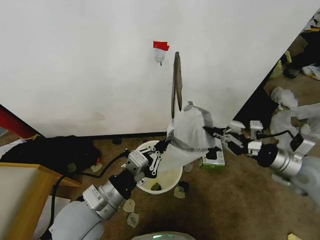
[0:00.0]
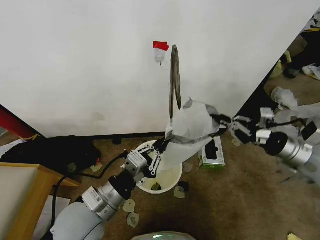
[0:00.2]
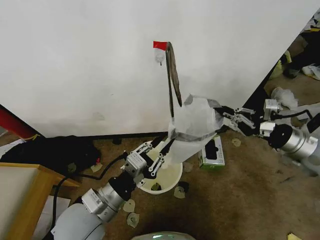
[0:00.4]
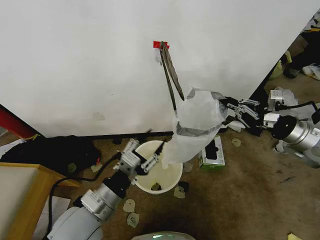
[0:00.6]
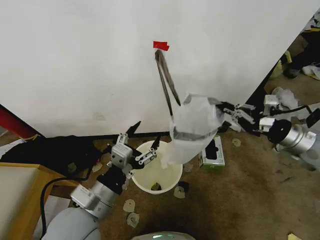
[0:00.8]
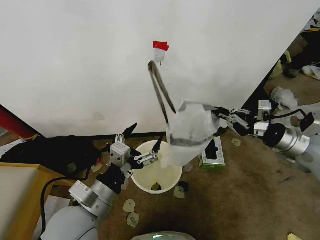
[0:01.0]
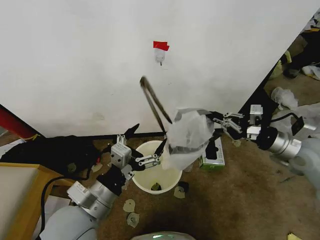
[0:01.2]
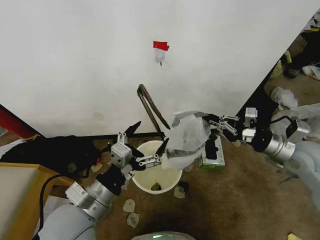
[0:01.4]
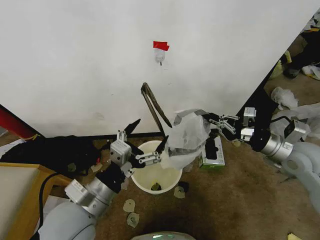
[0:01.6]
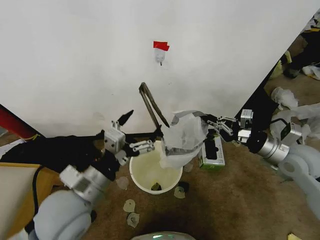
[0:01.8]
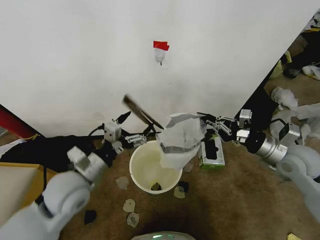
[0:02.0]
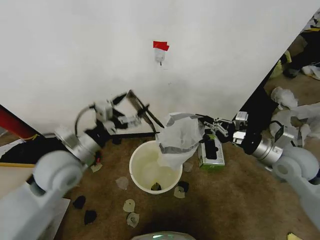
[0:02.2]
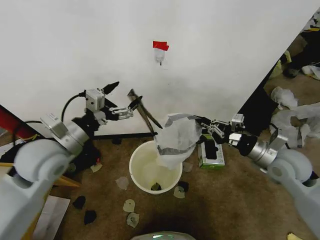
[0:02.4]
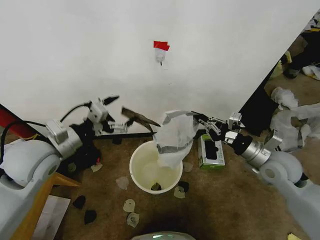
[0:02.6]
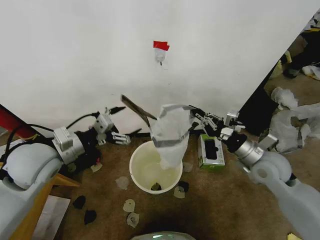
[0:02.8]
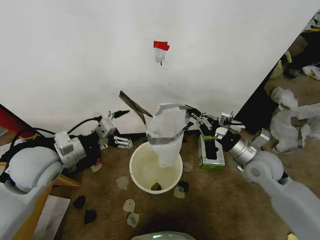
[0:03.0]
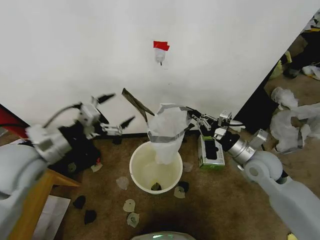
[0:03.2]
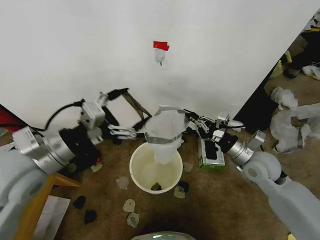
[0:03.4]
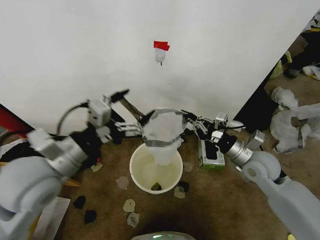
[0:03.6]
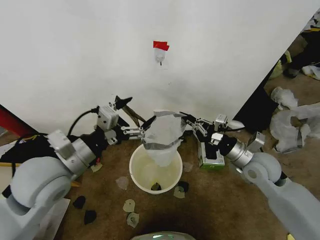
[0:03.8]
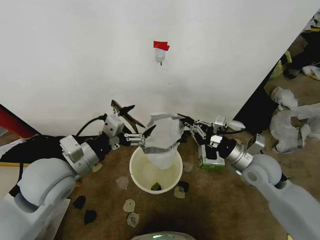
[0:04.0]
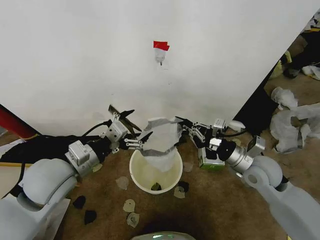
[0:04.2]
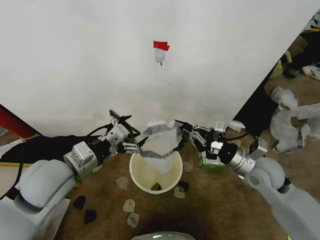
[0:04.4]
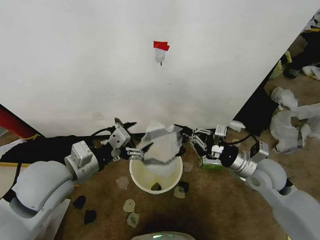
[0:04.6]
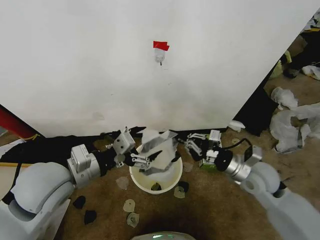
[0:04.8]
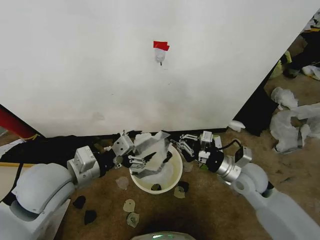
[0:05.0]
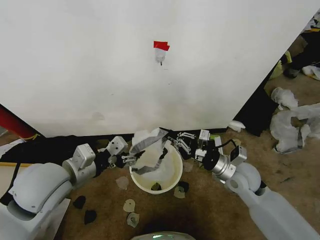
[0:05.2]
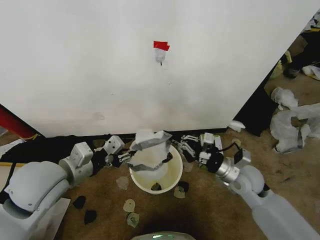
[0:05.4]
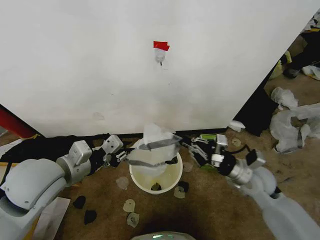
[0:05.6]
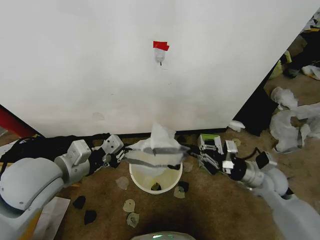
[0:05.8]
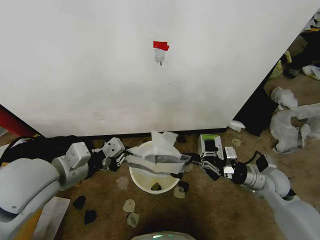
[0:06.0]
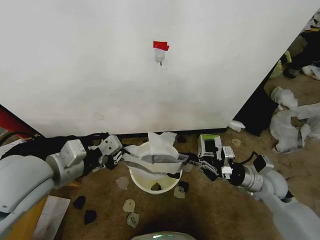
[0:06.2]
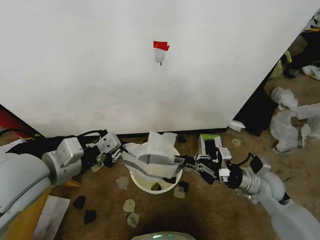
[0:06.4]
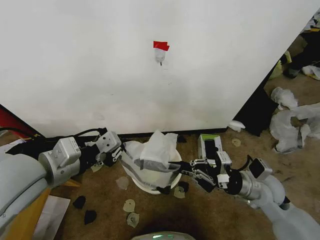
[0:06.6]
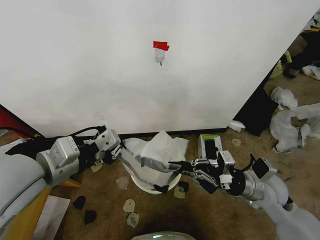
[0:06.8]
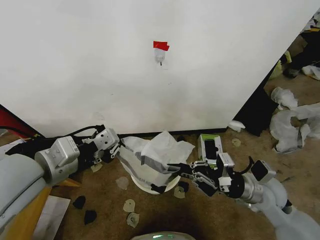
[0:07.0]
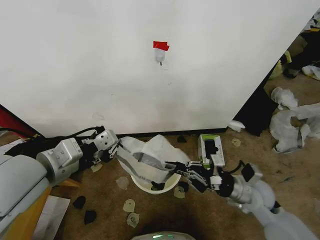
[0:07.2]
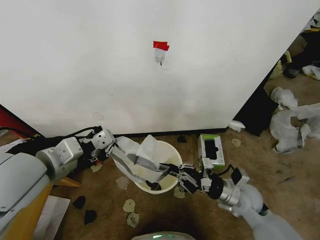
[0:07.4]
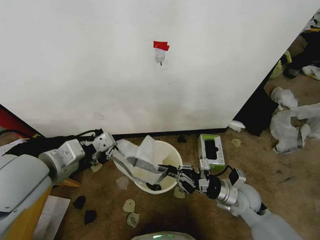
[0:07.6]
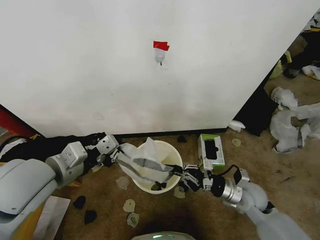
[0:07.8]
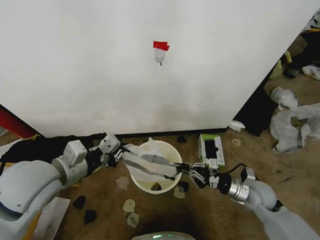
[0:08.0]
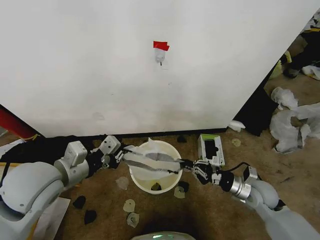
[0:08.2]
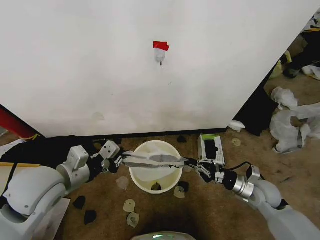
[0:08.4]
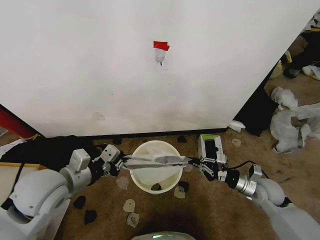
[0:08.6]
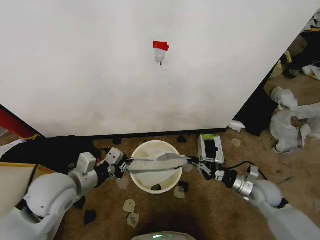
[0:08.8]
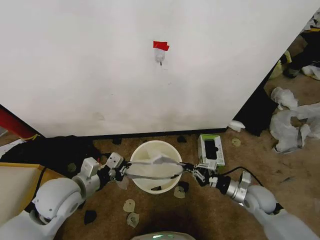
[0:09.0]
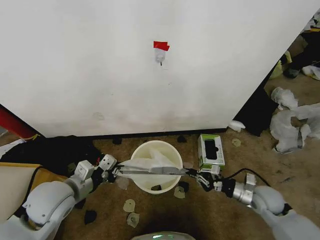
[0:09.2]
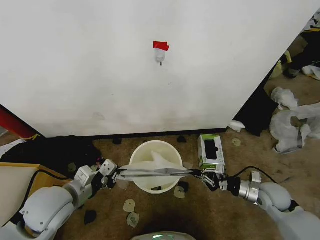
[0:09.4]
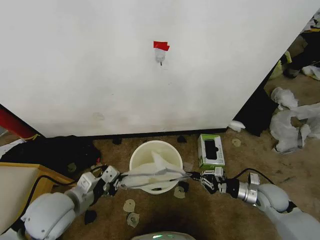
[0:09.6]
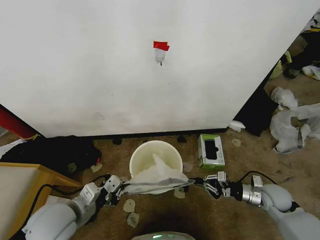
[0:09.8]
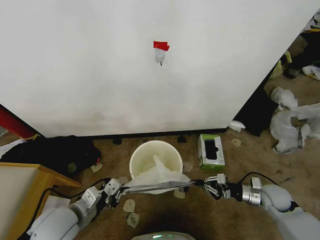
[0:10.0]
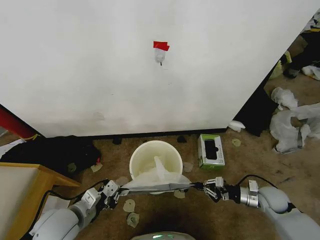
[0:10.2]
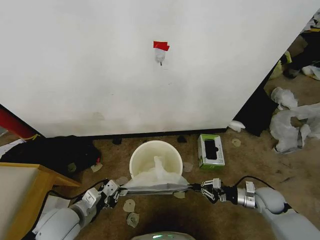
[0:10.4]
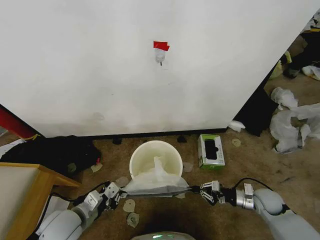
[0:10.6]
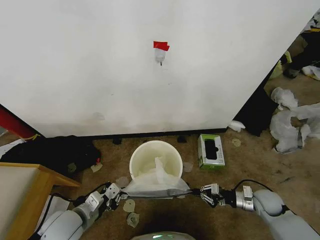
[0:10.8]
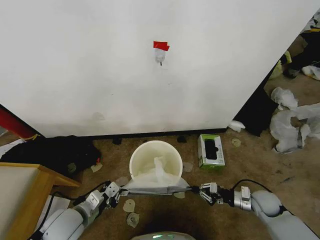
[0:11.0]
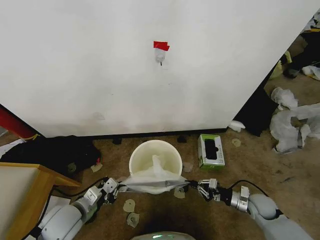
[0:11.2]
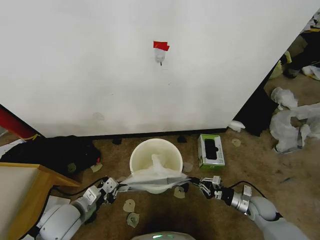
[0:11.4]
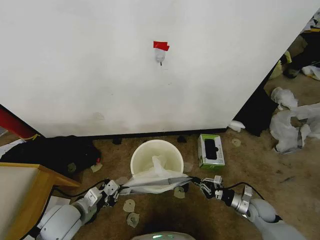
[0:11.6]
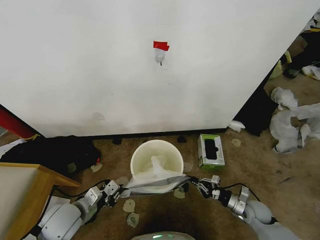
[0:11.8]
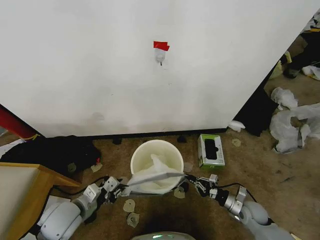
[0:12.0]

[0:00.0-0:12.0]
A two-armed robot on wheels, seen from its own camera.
Task of the whole recording: Place the garbage bag over the trash bin.
0:00.0 to 0:01.6: The left gripper opens its fingers.
0:01.6 to 0:03.0: The right gripper moves to the left and downward, about 10 cm. The left gripper shifts about 15 cm forward and to the left.
0:04.4 to 0:06.0: The left gripper closes up. The right gripper shifts roughly 5 cm downward.
0:06.0 to 0:07.6: The right gripper is displaced to the left and downward by roughly 10 cm.
0:07.6 to 0:09.0: The right gripper is displaced to the right by some 5 cm. The left gripper goes some 15 cm downward.
0:09.0 to 0:10.4: The right gripper is displaced to the right by about 5 cm. Meanwhile the left gripper heads downward and backward, covering roughly 10 cm.
0:10.4 to 0:12.0: The right gripper moves downward, roughly 5 cm.

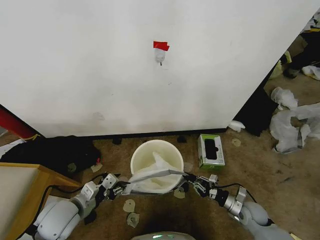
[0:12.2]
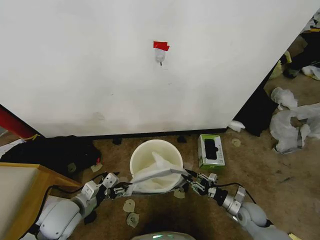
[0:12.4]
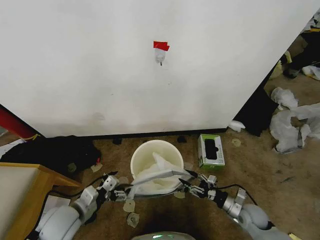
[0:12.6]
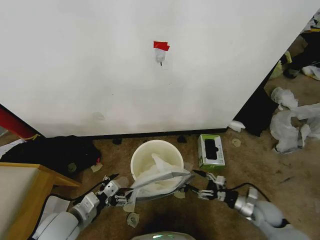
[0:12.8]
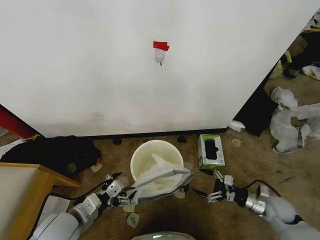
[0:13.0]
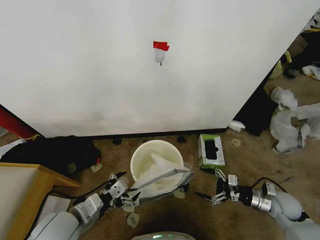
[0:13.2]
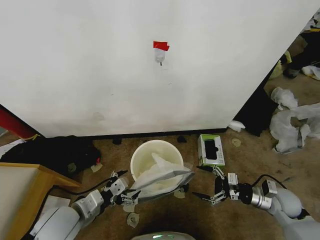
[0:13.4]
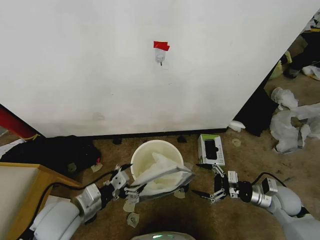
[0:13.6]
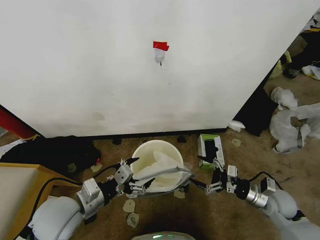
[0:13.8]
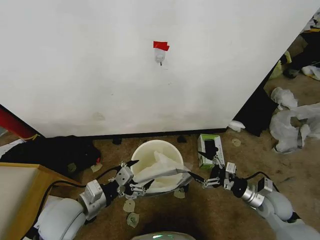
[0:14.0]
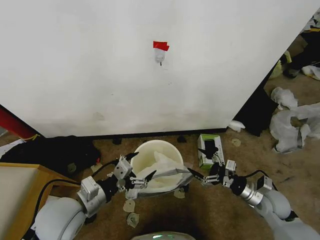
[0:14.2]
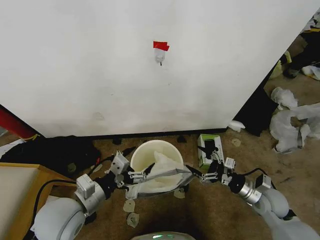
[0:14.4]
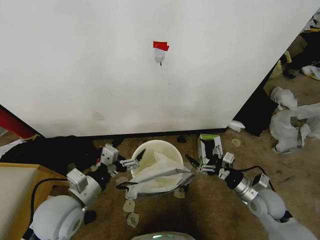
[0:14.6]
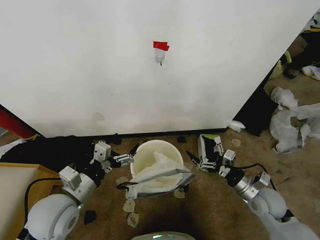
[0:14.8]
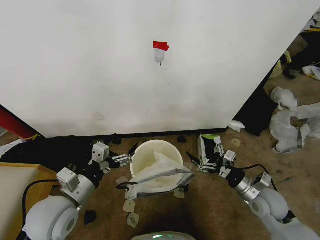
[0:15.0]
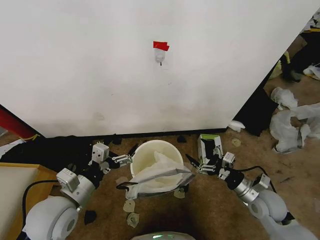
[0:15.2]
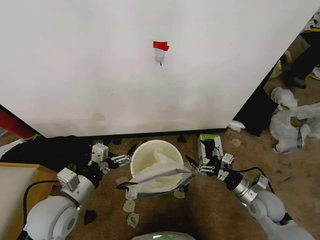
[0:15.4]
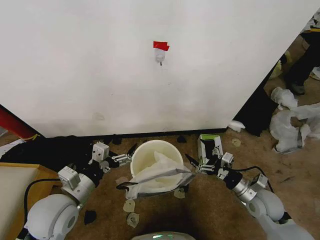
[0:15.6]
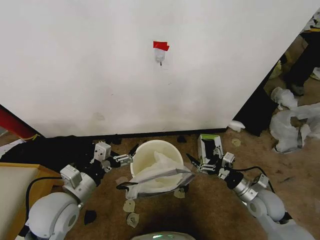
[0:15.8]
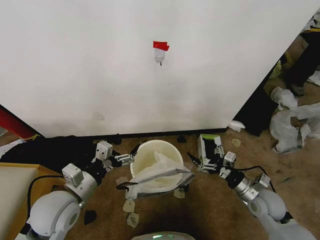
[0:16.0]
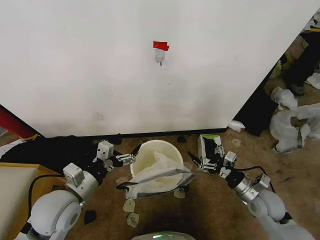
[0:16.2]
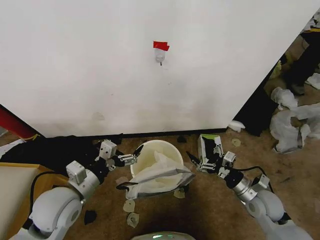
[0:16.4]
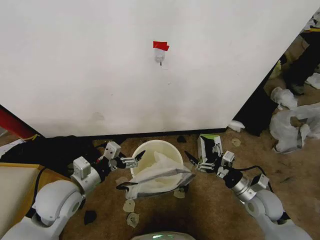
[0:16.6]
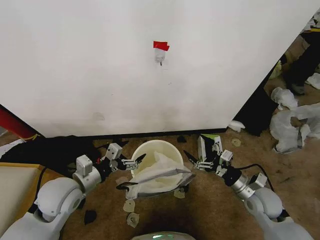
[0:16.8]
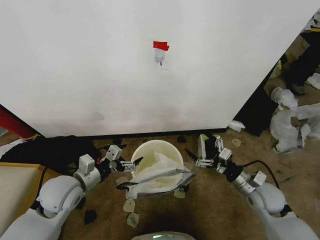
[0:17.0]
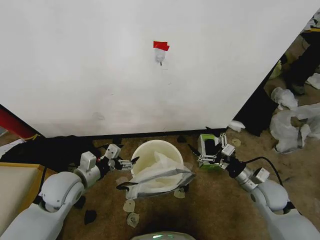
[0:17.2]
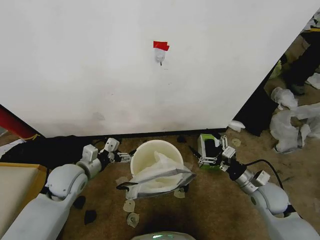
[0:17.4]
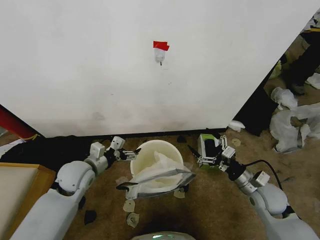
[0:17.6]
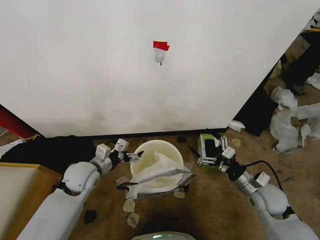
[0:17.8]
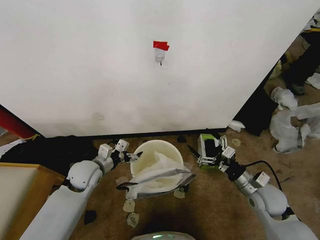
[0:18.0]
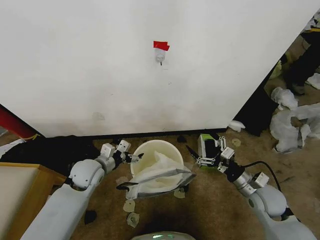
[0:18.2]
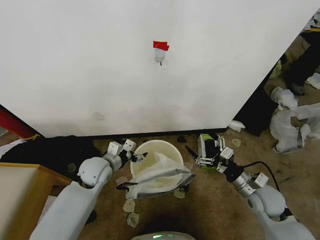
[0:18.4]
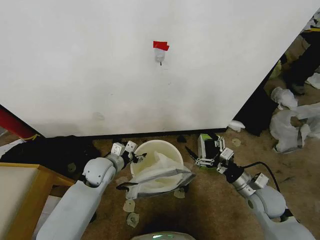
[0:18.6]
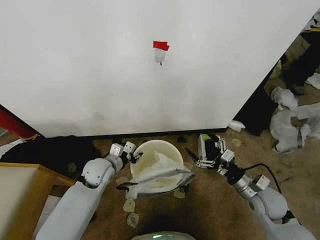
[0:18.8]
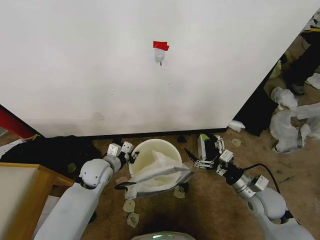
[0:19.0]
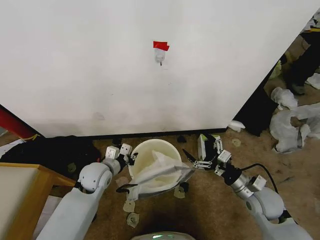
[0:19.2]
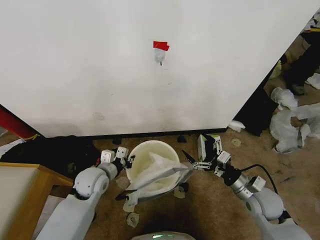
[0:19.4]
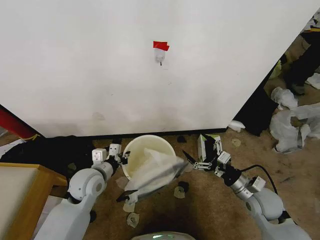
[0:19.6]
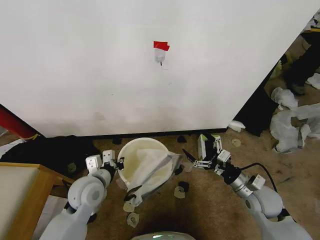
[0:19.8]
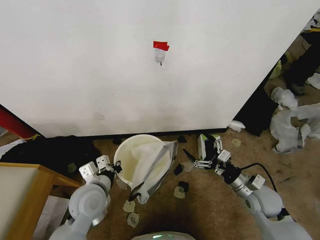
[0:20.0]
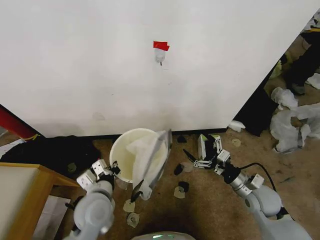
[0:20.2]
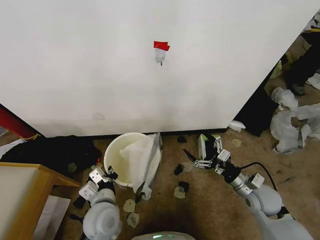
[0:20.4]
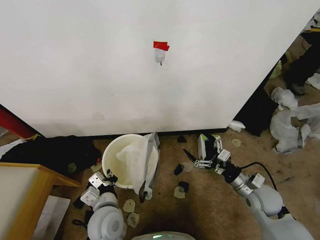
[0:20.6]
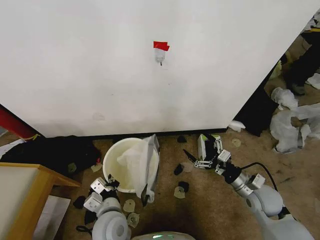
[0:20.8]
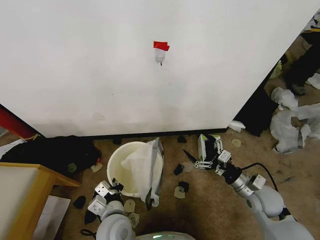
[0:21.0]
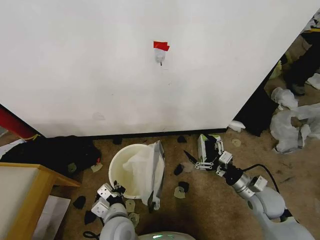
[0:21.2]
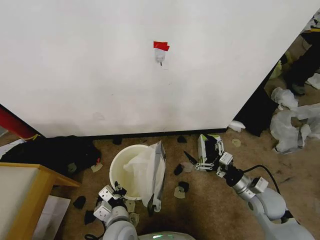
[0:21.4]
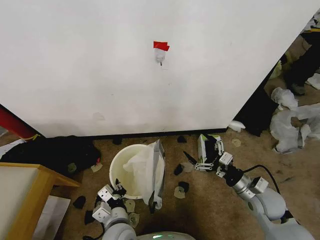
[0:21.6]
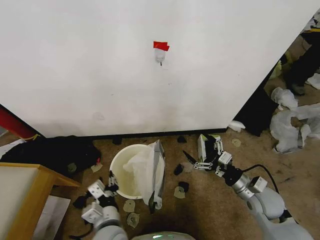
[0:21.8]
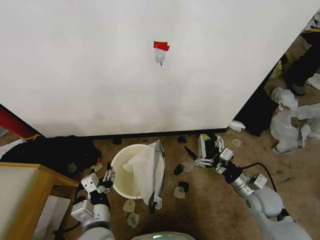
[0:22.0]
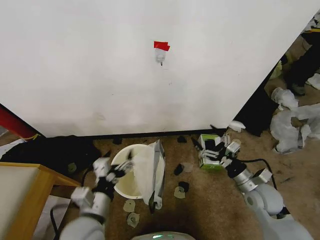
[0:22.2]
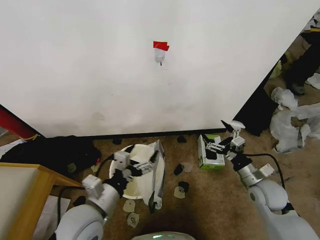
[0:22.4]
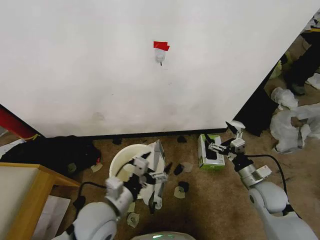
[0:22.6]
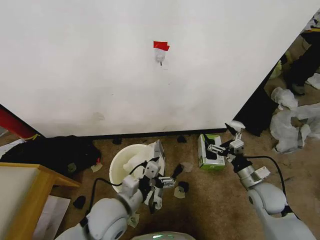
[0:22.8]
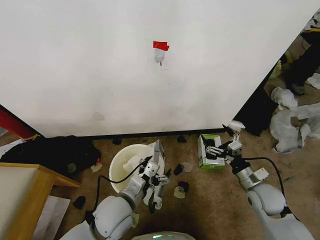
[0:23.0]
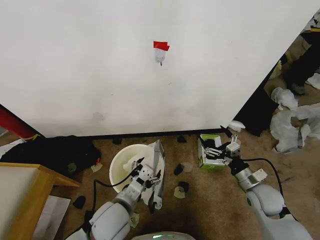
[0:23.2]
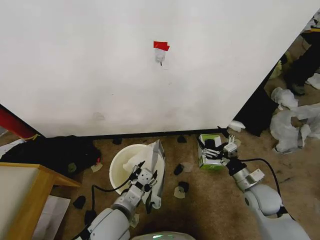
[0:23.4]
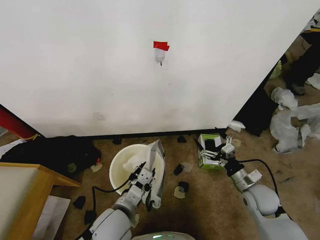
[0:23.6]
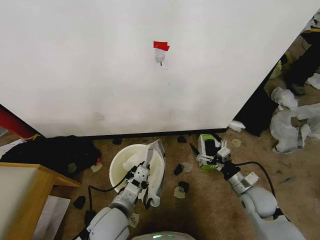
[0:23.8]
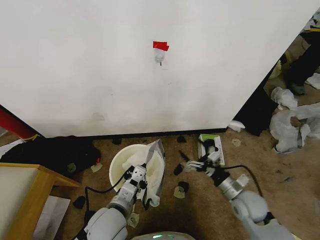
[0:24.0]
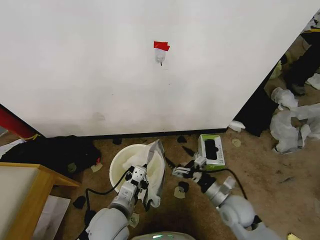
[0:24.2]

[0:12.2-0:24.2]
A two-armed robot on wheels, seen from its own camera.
Task of the whole recording: Place the garbage bag over the trash bin.
0:12.2 to 0:13.8: The right gripper is displaced upward by some 10 cm, and opens, while the left gripper goes approximately 5 cm upward, and opens.
0:13.8 to 0:15.2: The right gripper travels to the left by about 5 cm.
0:15.2 to 0:16.6: The grippers stay close to where they were, moving slightly.
0:16.6 to 0:18.2: The left gripper heads forward and downward, covering some 10 cm.
0:18.2 to 0:19.8: The left gripper heads backward, covering about 5 cm, and closes its fingers.
0:19.8 to 0:21.2: The left gripper is displaced to the right, backward and downward by about 15 cm.
0:21.2 to 0:22.6: The left gripper heads upward, covering roughly 10 cm, and opens up.
0:22.6 to 0:24.2: The right gripper heads to the left, covering about 10 cm. Meanwhile the left gripper closes up.
